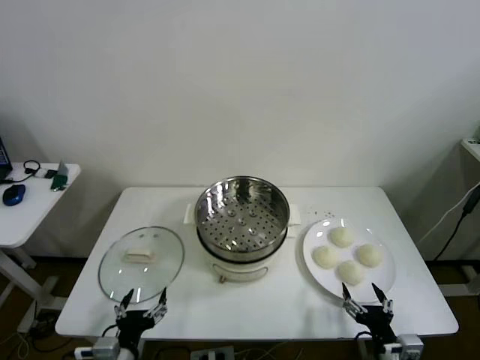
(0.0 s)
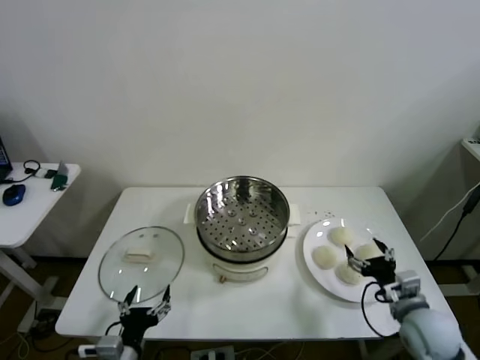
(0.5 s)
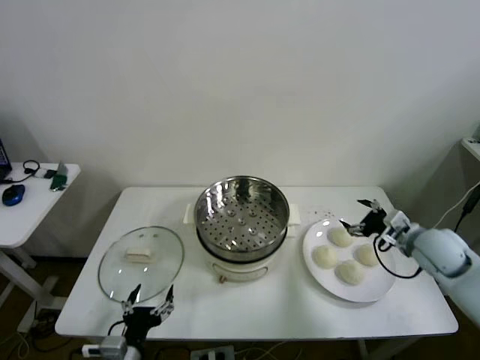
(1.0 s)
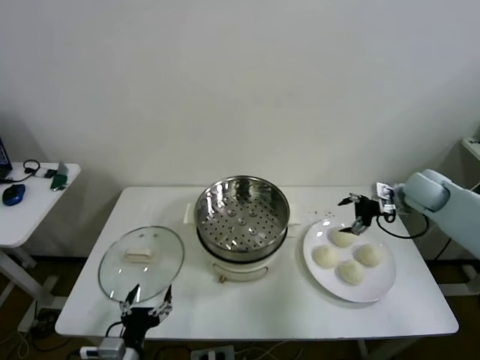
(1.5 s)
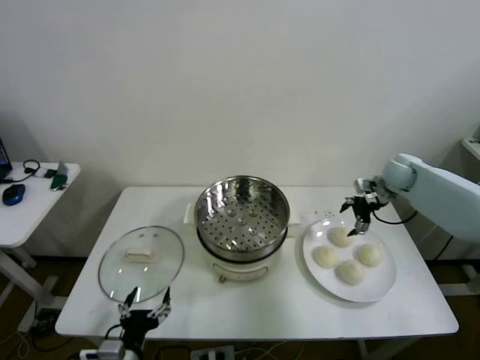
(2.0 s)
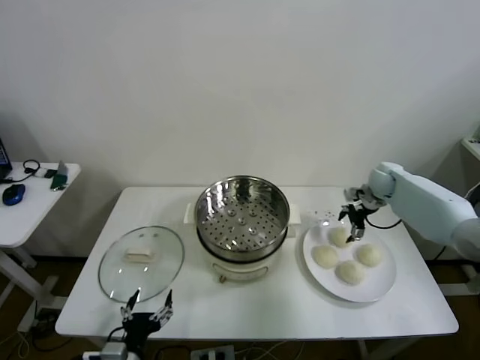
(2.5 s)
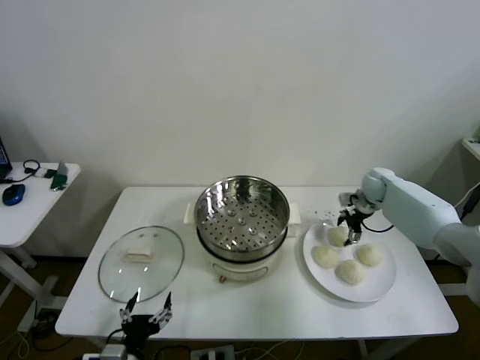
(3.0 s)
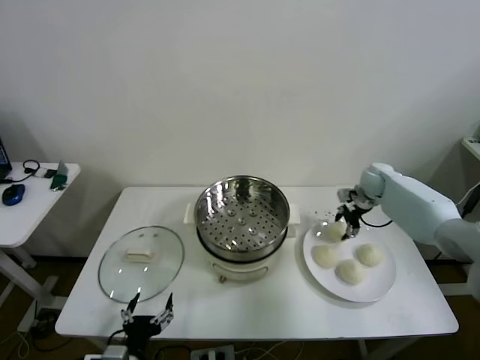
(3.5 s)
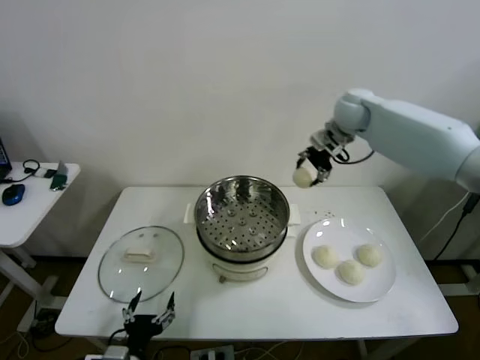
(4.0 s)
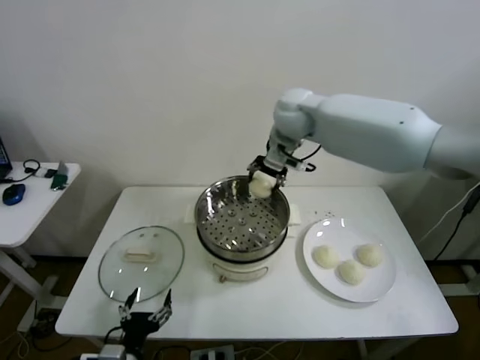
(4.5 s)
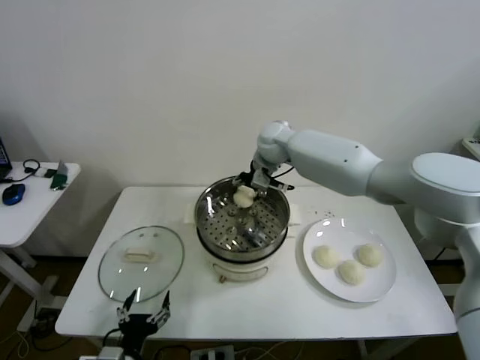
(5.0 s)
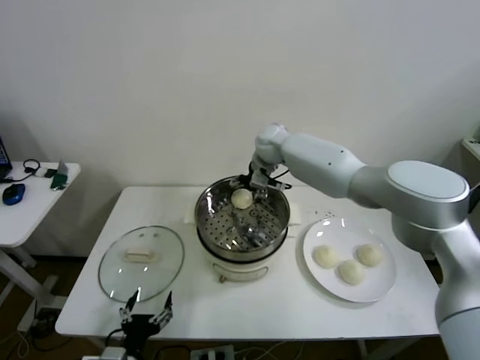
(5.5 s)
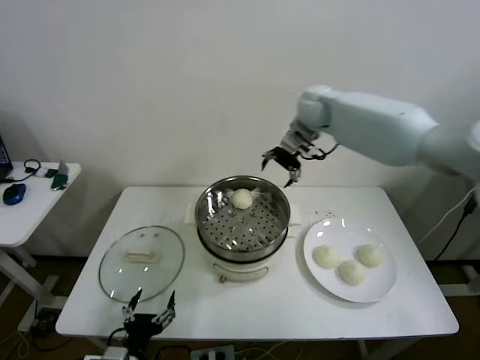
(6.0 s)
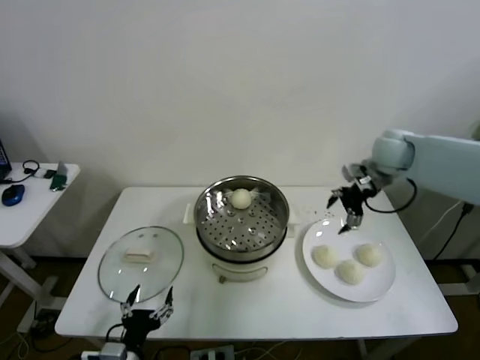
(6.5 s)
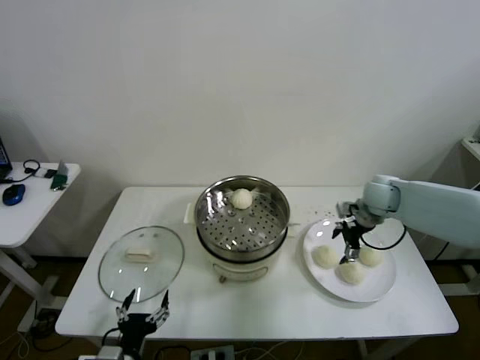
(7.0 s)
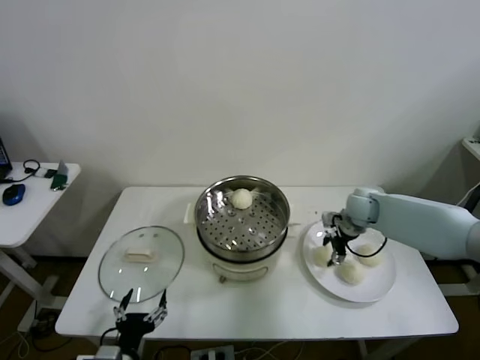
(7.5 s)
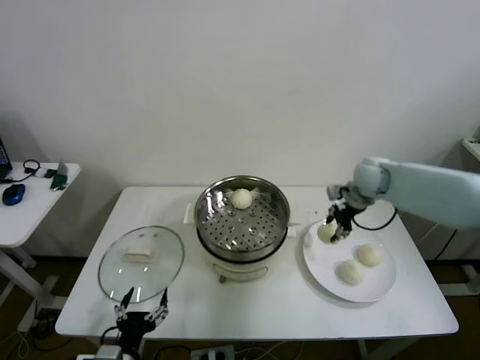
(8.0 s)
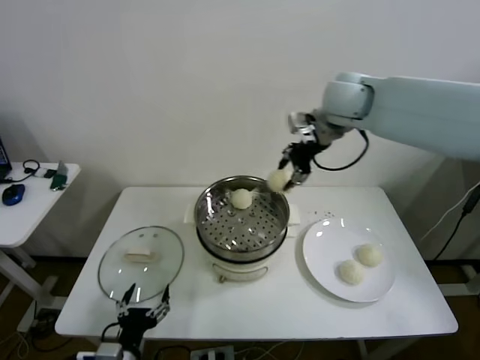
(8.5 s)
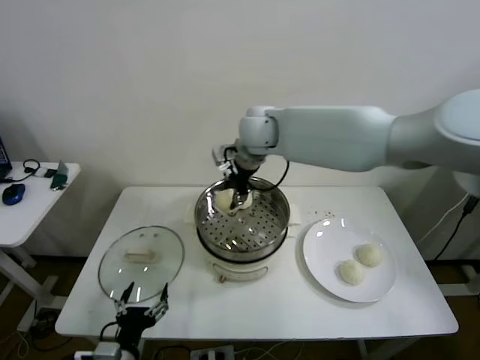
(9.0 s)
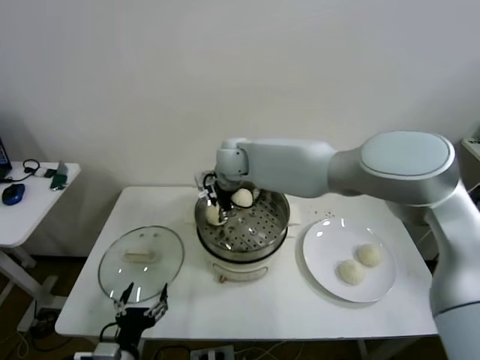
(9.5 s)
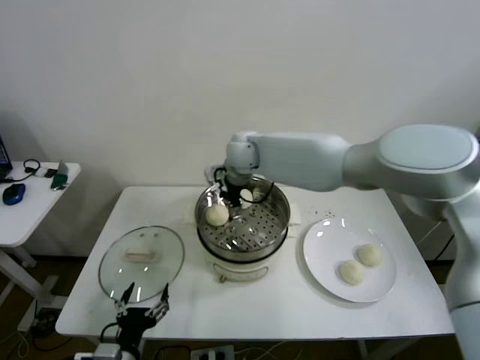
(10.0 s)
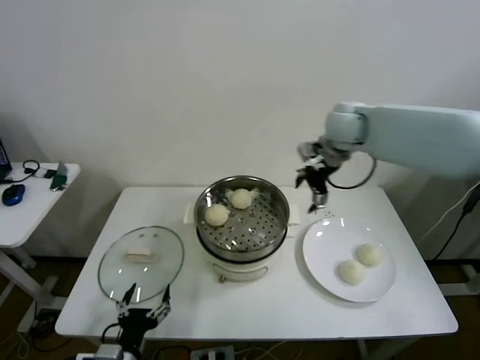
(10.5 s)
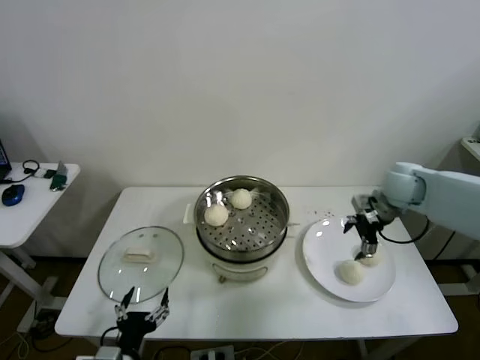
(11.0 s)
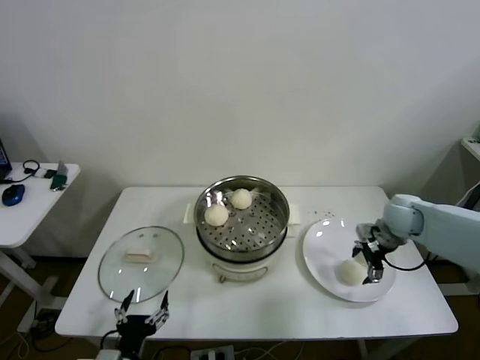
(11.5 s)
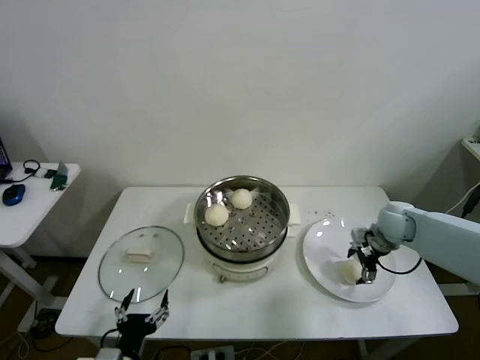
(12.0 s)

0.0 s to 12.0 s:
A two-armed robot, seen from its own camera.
Step, 0.0 to 3.0 s: Grasp the baozi in the plate with right gripper.
Step, 3.5 to 5.0 s: Place the baozi on the steamer with right gripper.
Step, 5.5 to 7.5 s: Grasp the baozi in the plate with right gripper.
Step, 8.0 to 9.5 s: Place the baozi on the steamer with right gripper.
2.0 to 4.0 s: The right gripper shifts roughly 25 cm upward and to the left, and closes.
4.0 to 6.0 s: The right gripper travels to the left by some 5 cm, and opens its fingers.
6.0 to 8.0 s: The right gripper shifts roughly 20 cm downward, to the right and backward, and closes.
8.0 to 10.0 s: The right gripper moves to the left, roughly 30 cm, and opens its fingers.
10.0 to 12.0 s: The right gripper moves to the right and downward, some 40 cm.

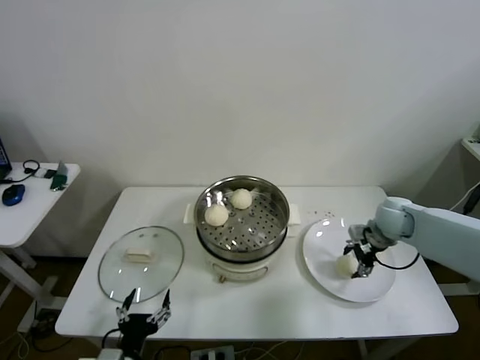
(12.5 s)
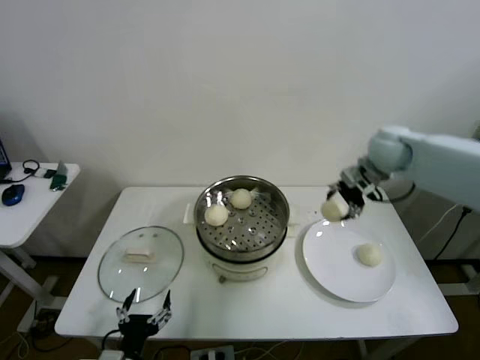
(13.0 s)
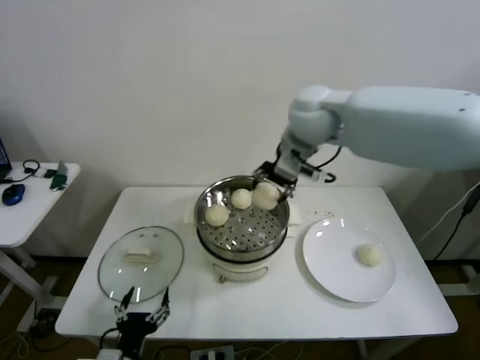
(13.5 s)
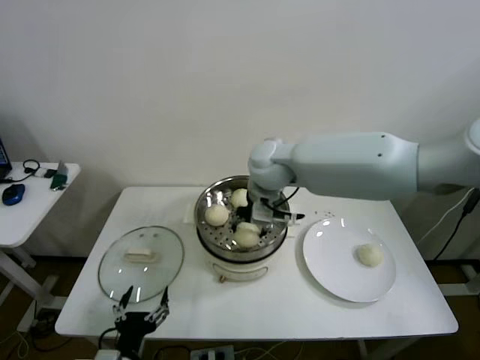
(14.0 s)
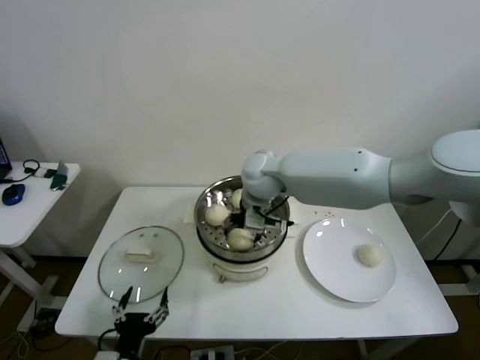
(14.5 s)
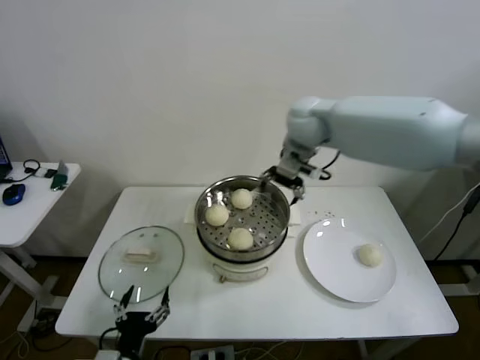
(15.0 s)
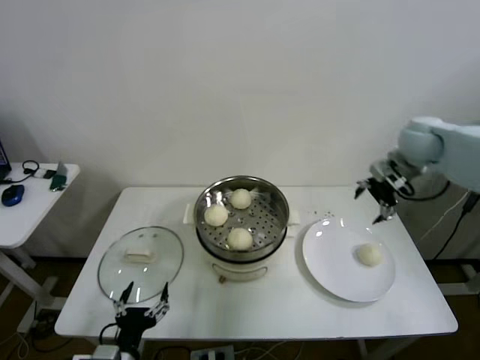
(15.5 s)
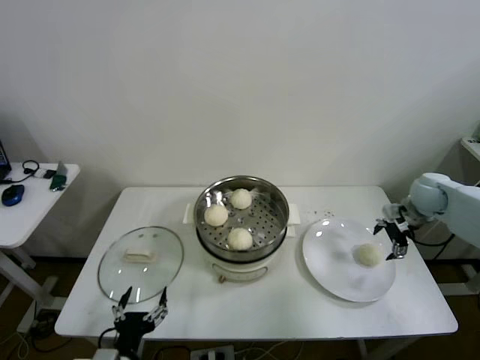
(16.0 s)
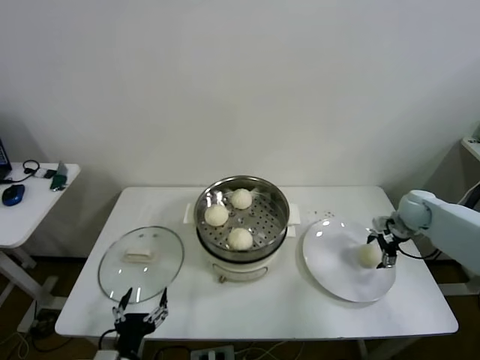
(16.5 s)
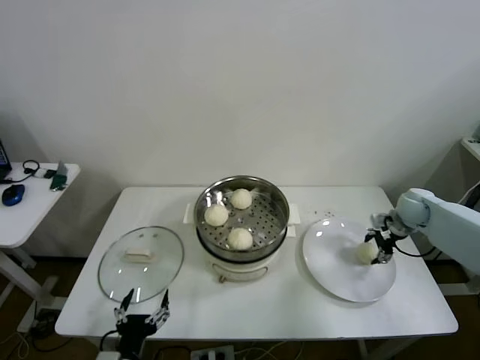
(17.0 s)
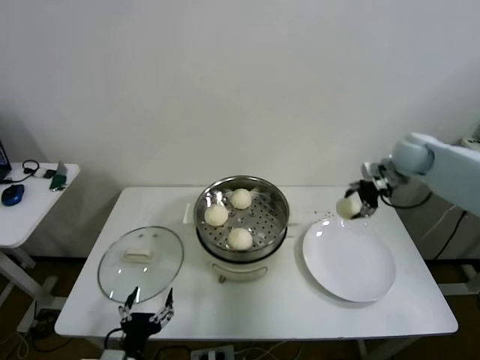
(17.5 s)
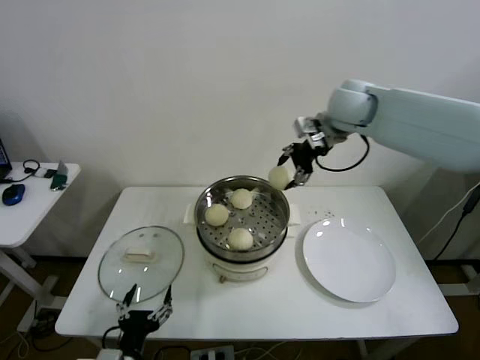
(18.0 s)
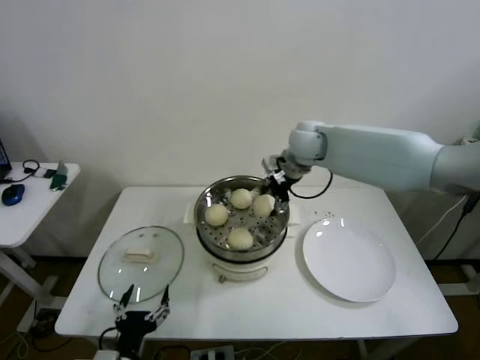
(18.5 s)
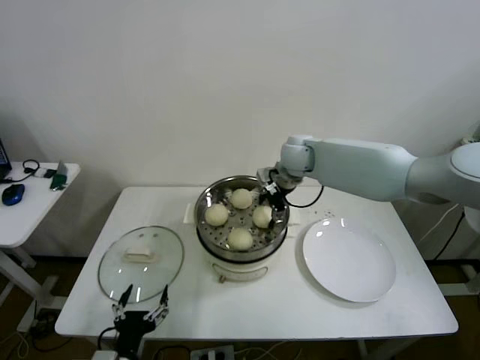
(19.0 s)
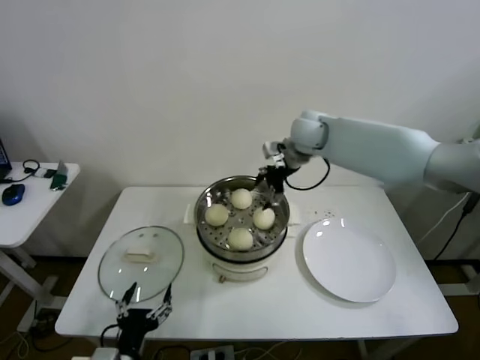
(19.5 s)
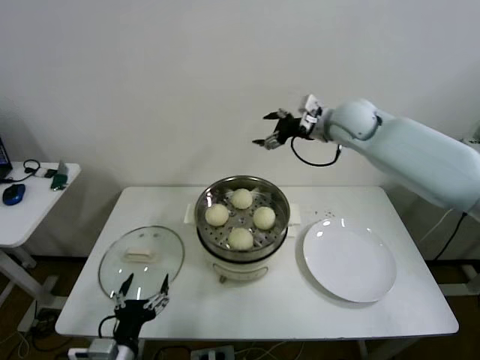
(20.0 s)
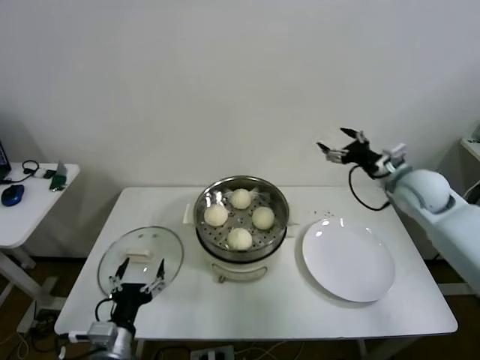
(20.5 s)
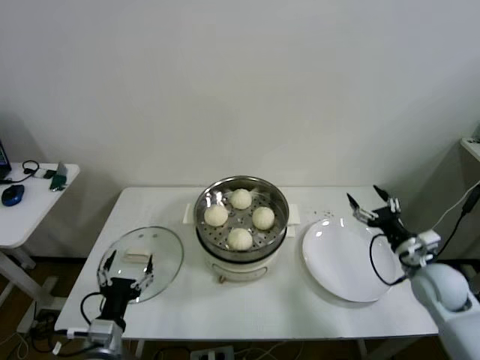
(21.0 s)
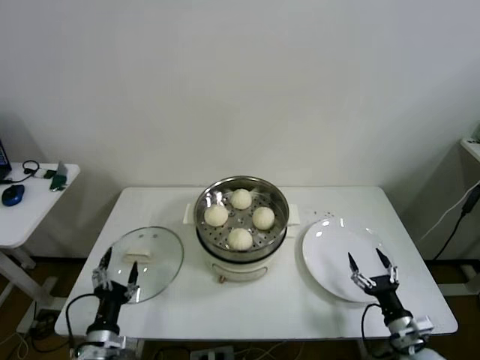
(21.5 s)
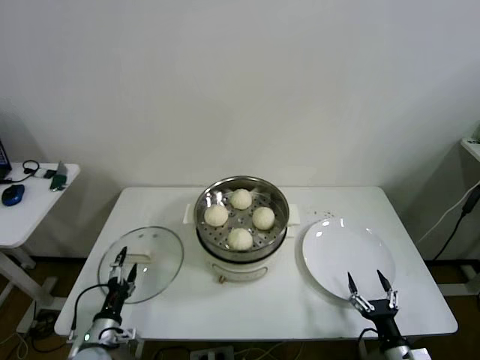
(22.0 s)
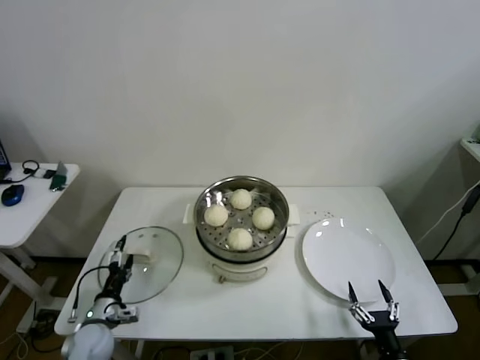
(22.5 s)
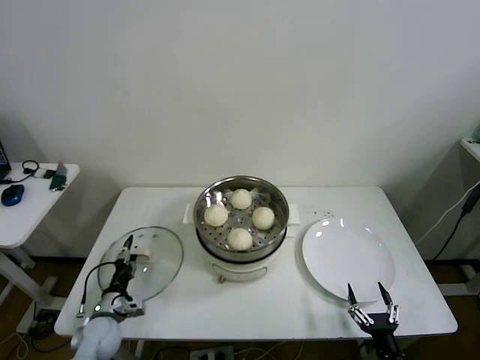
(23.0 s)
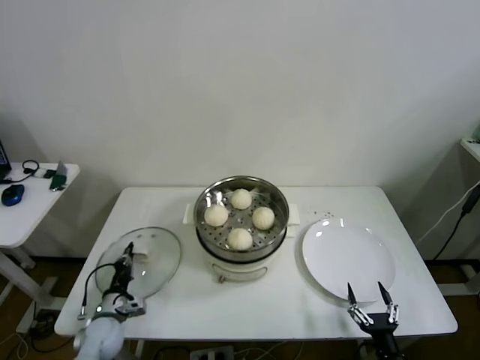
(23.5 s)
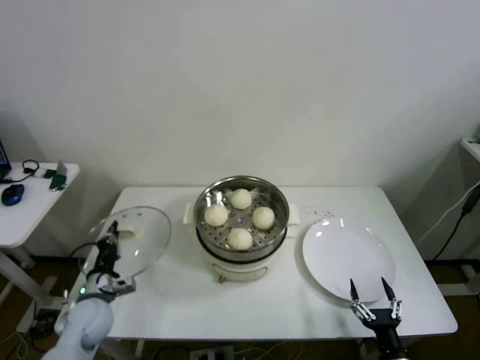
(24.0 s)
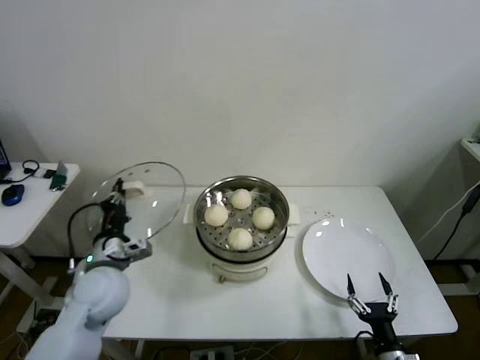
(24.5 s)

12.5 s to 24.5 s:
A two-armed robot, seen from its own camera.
Step, 12.5 to 14.0 s: Place the baozi on the steamer with right gripper.
Step, 14.5 to 16.5 s: Grasp the baozi in the plate with right gripper.
Step, 17.0 to 19.0 s: Place the baozi on the steamer with right gripper.
Step, 19.5 to 23.0 s: Grasp the pot lid with left gripper.
12.5 to 14.5 s: The right gripper travels to the left by about 35 cm.
14.5 to 16.5 s: The right gripper heads to the right, covering about 40 cm.
16.5 to 18.5 s: The right gripper travels to the left and upward by about 35 cm, and closes up.
18.5 to 20.5 s: The right gripper is displaced to the right and backward by approximately 25 cm, and opens.
20.5 to 22.5 s: The right gripper travels backward and downward by some 50 cm. Meanwhile the left gripper moves downward, to the left and forward, approximately 20 cm.
22.5 to 24.5 s: The left gripper is displaced upward by some 20 cm, and closes.

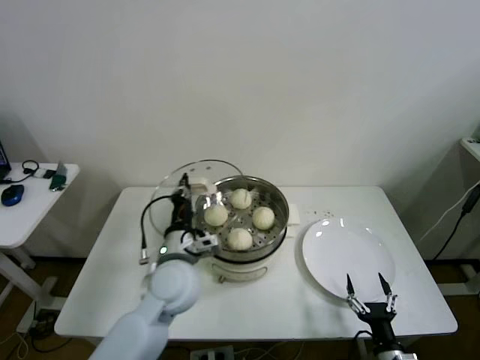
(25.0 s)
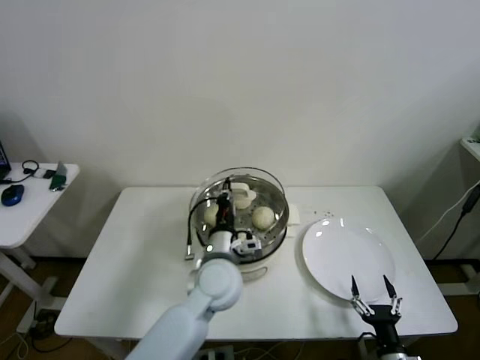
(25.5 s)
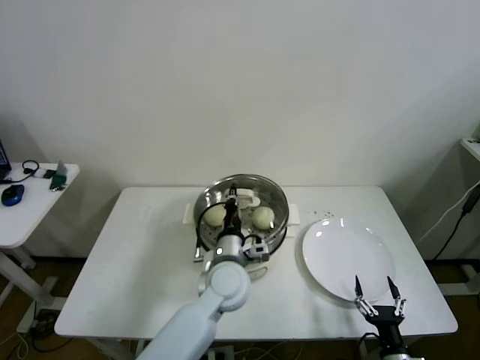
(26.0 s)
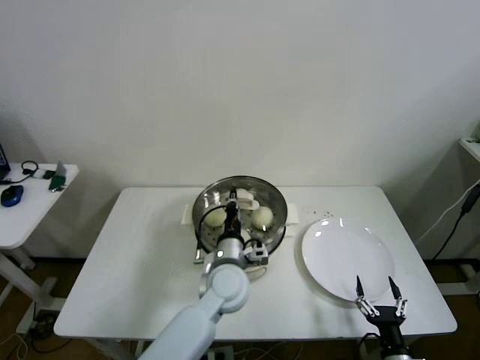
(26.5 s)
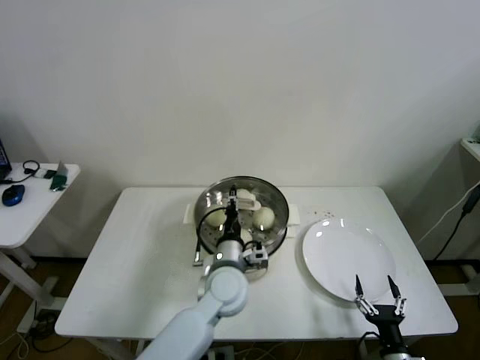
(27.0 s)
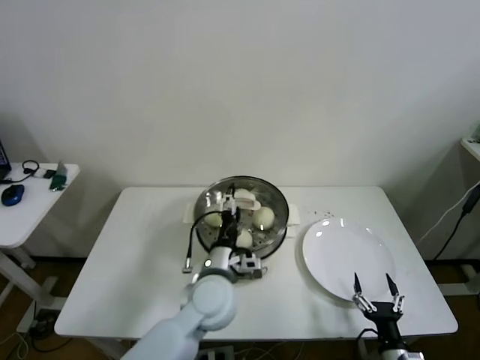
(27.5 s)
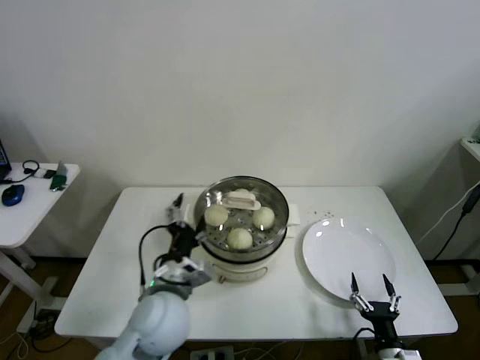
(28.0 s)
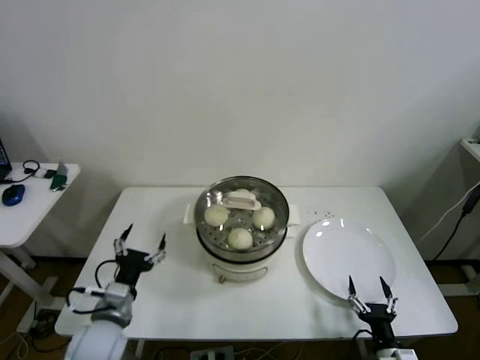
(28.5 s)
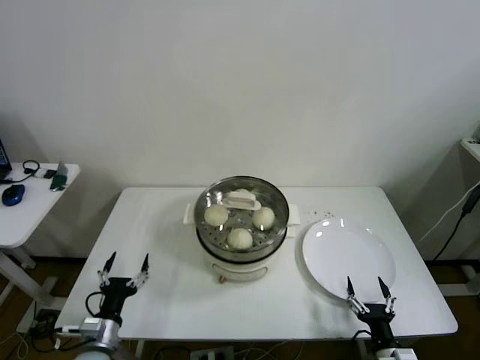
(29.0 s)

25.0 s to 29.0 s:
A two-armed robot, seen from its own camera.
25.0 to 27.0 s: The left gripper is displaced to the right and downward by approximately 15 cm.
27.0 to 29.0 s: The left gripper shifts roughly 30 cm to the left and backward, and opens up.
